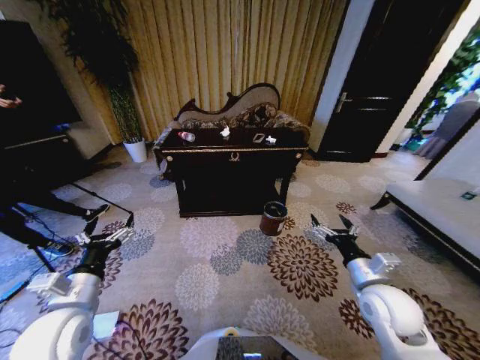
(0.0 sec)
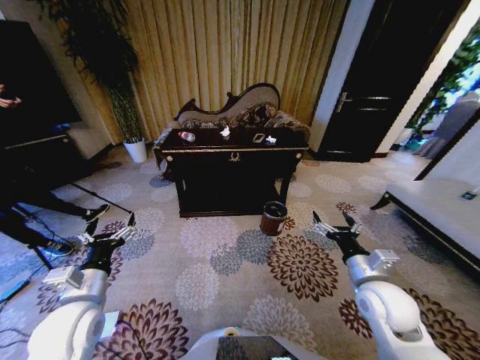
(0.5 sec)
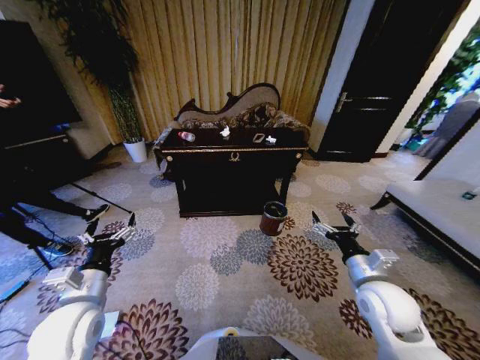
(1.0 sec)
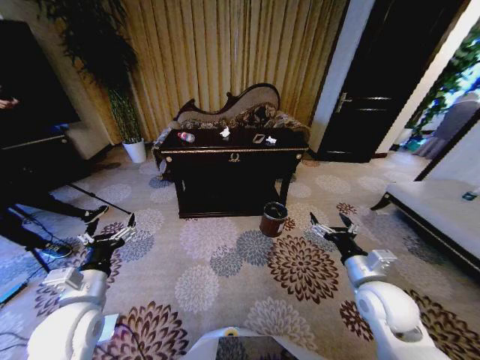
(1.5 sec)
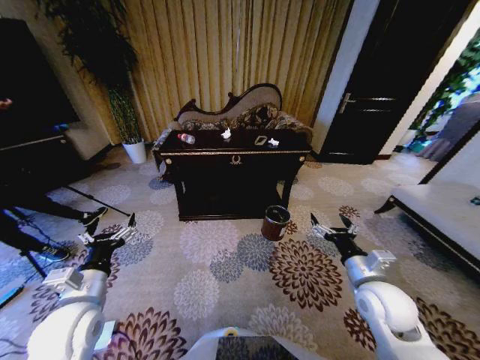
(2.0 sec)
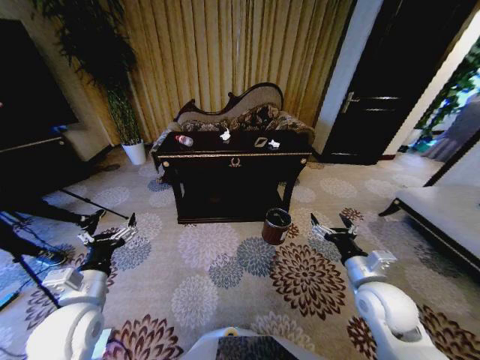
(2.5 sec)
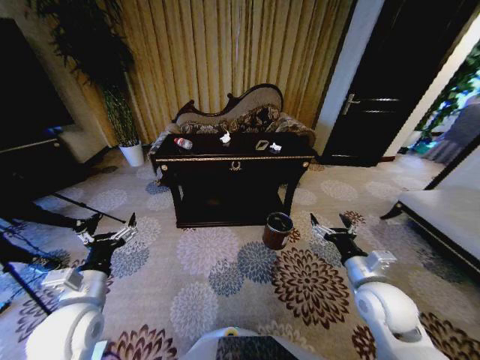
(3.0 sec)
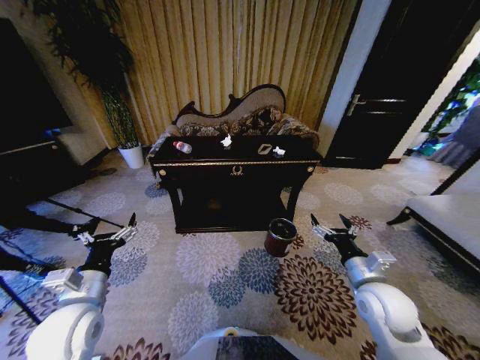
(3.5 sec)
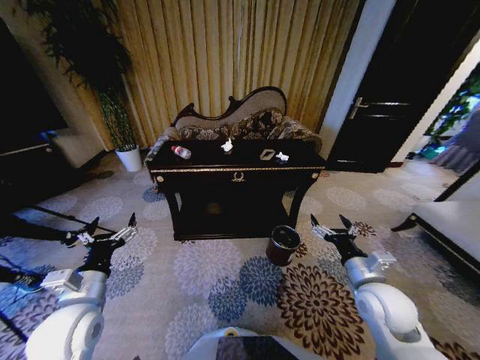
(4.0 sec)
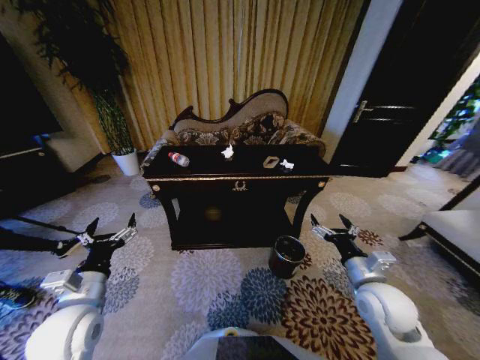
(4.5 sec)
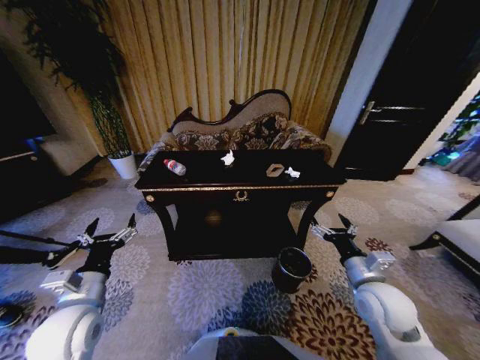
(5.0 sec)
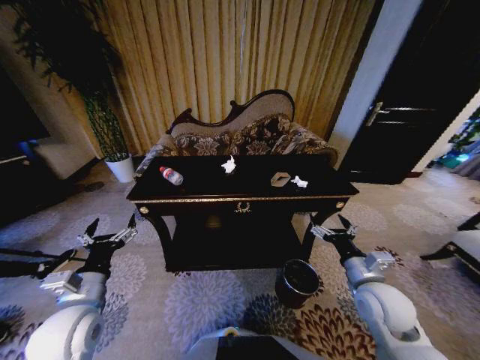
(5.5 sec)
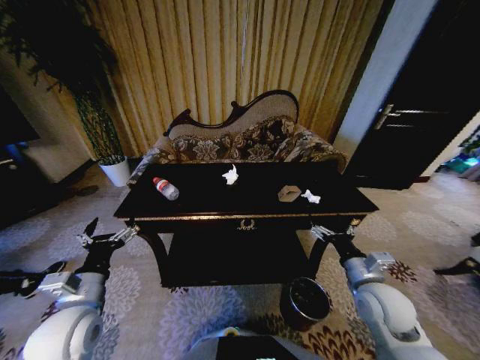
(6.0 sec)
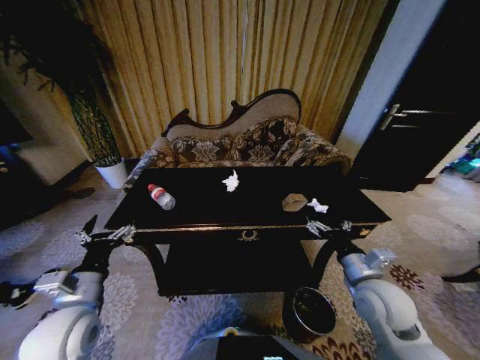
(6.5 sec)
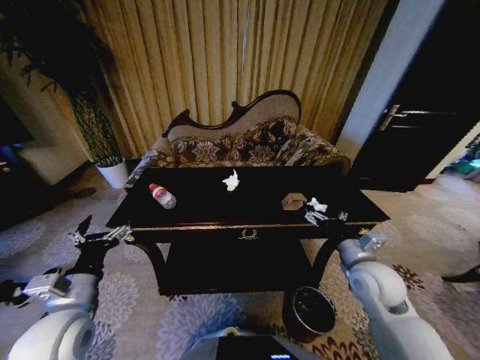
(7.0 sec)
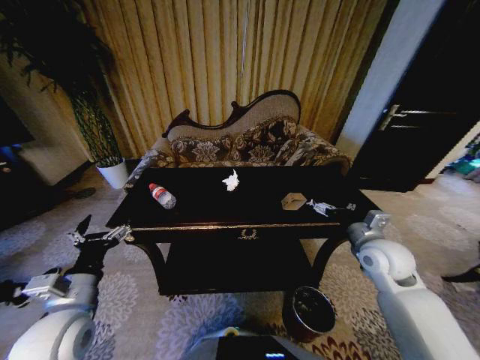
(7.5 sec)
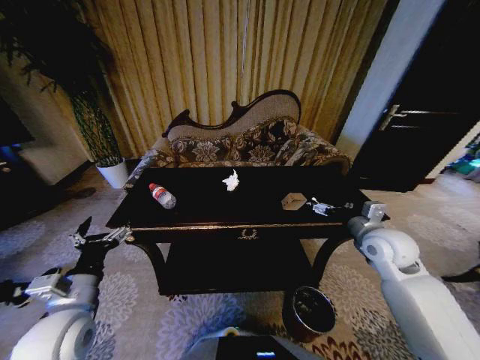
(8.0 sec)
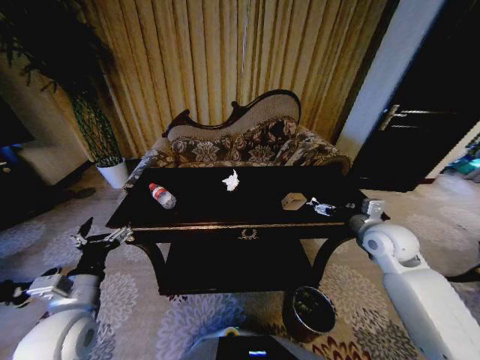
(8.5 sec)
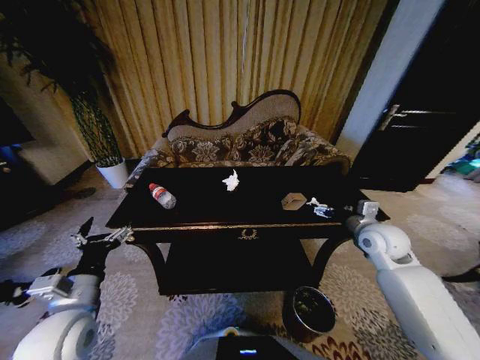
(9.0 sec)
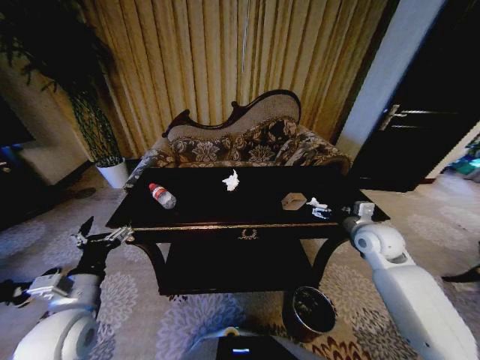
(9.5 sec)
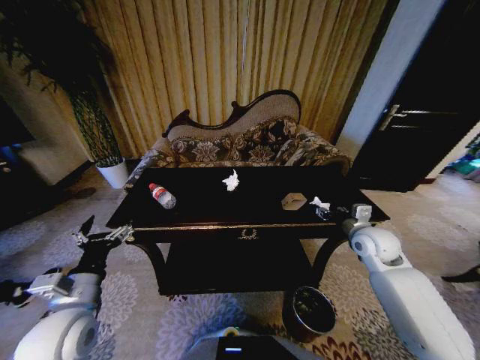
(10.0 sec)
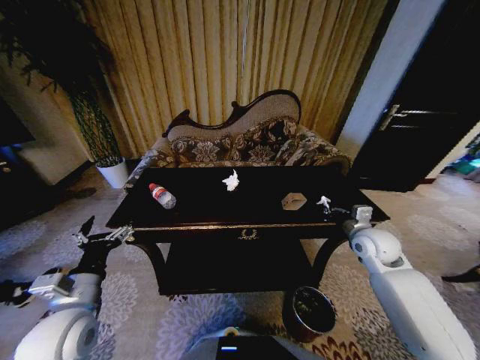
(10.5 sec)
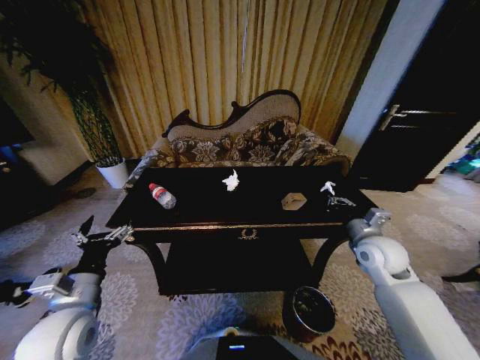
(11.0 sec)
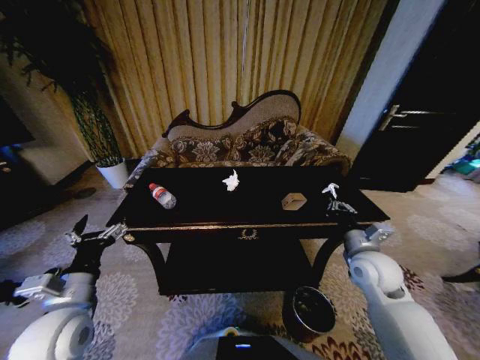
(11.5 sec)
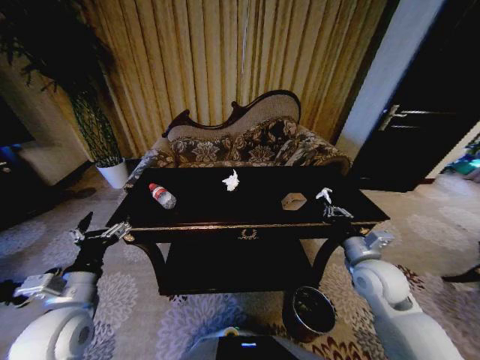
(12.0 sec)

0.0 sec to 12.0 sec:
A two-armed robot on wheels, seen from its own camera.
Task of the whole recording: Move to the front of the table and place the trash on the table into the trash bin.
6.0 sec to 8.0 sec: The right gripper moves forward and upward, about 15 cm.
8.0 sec to 10.0 sec: The right gripper moves approximately 5 cm, and closes.
10.0 sec to 12.0 sec: The right gripper goes some 10 cm backward, and closes up.

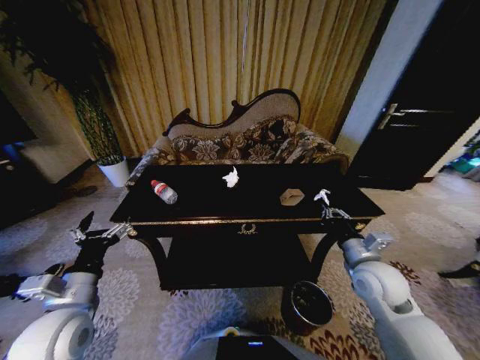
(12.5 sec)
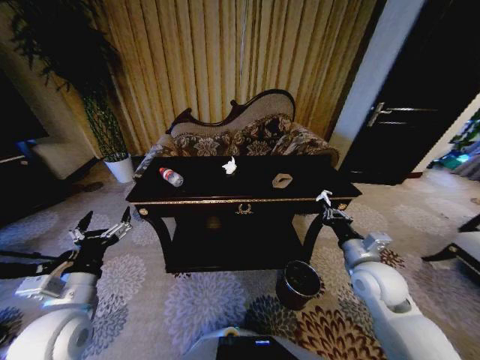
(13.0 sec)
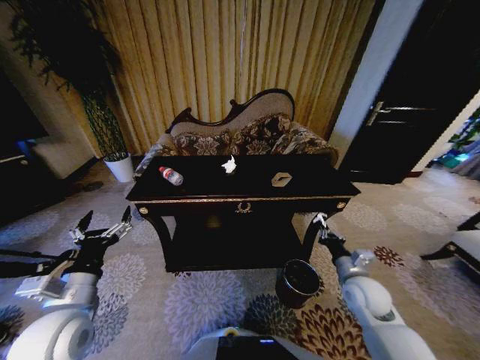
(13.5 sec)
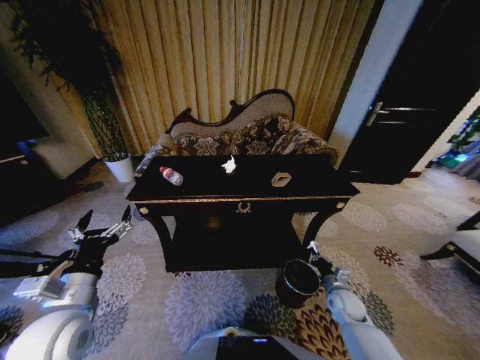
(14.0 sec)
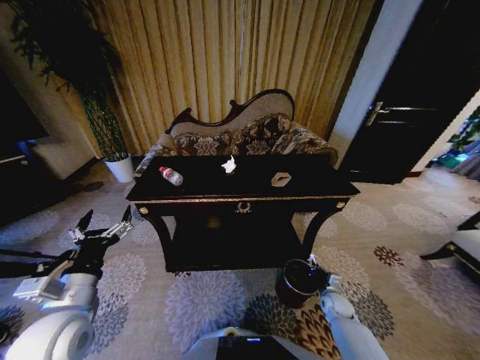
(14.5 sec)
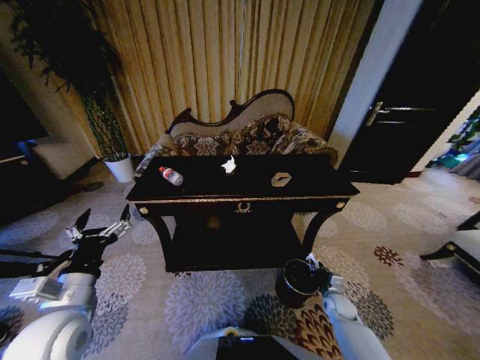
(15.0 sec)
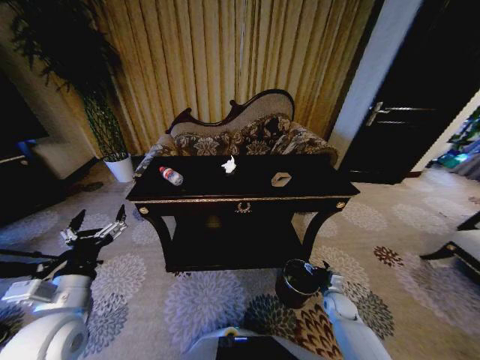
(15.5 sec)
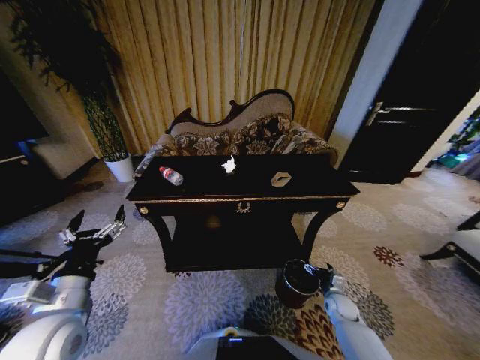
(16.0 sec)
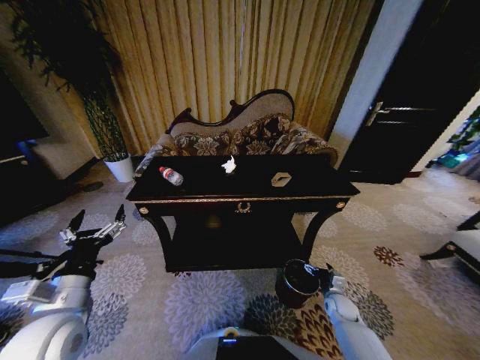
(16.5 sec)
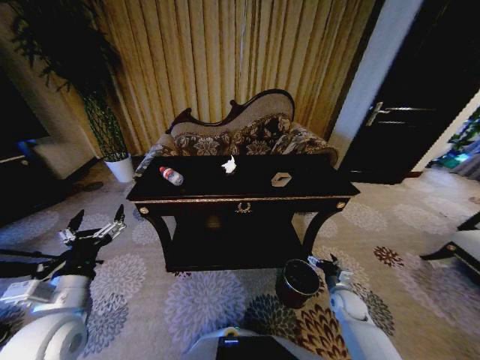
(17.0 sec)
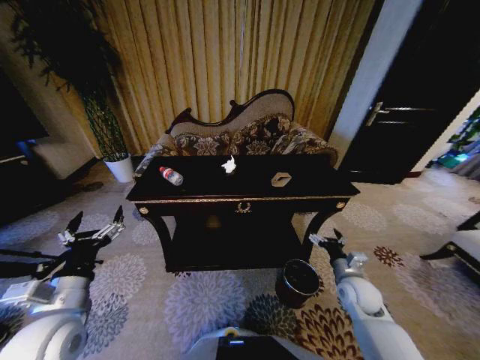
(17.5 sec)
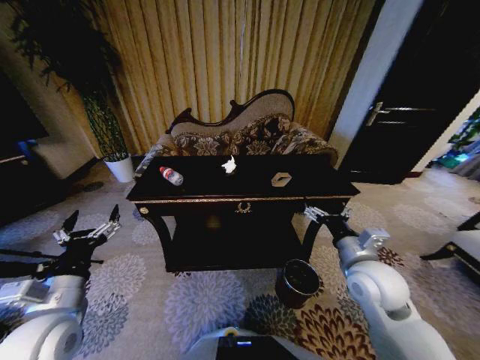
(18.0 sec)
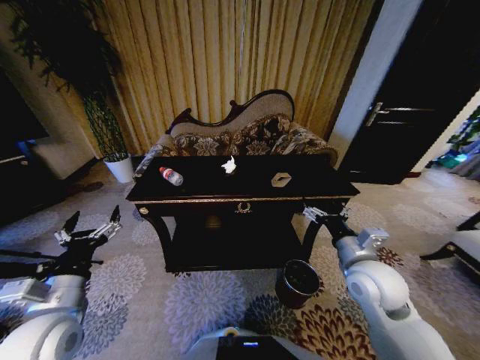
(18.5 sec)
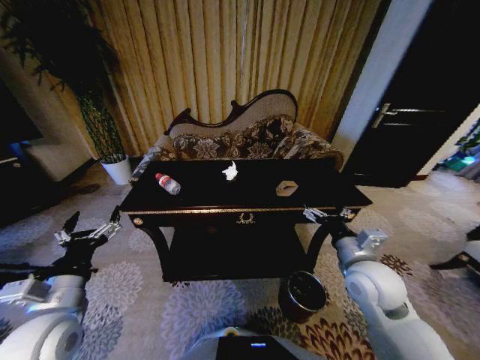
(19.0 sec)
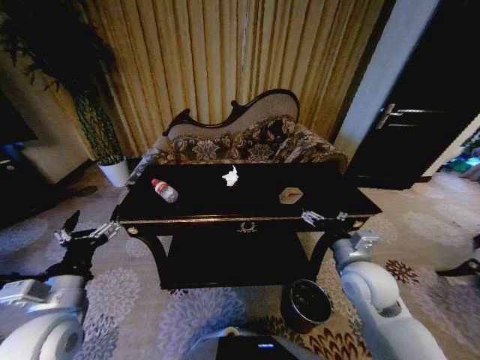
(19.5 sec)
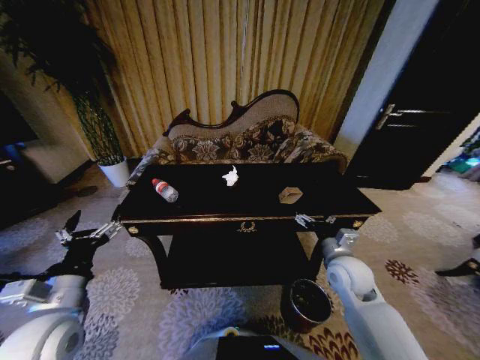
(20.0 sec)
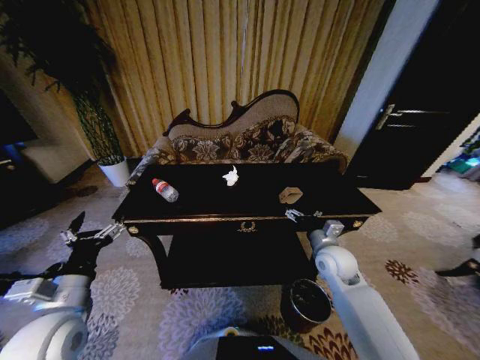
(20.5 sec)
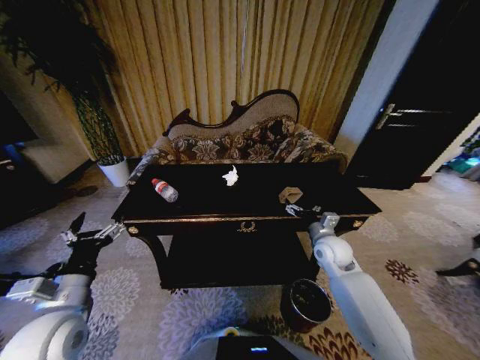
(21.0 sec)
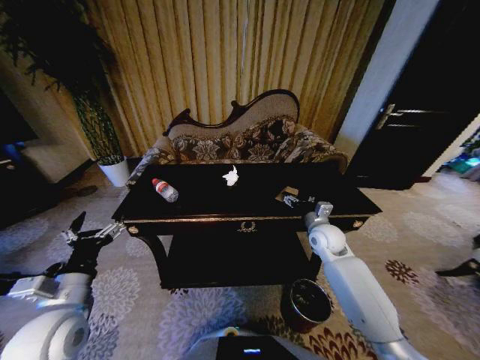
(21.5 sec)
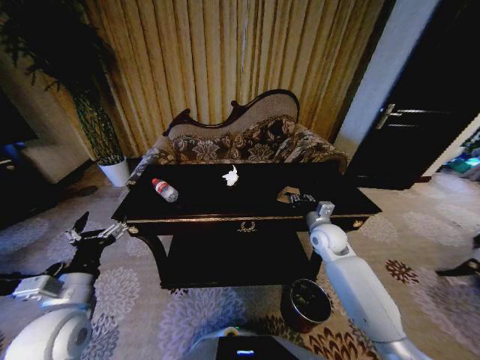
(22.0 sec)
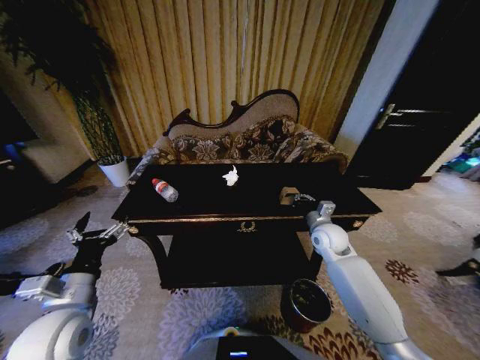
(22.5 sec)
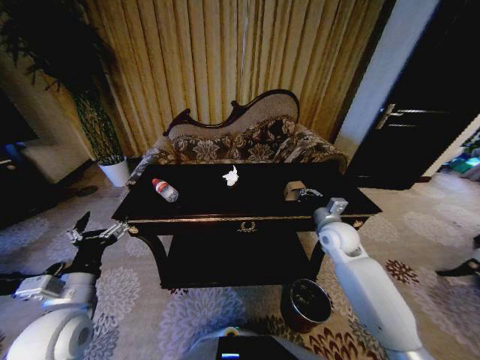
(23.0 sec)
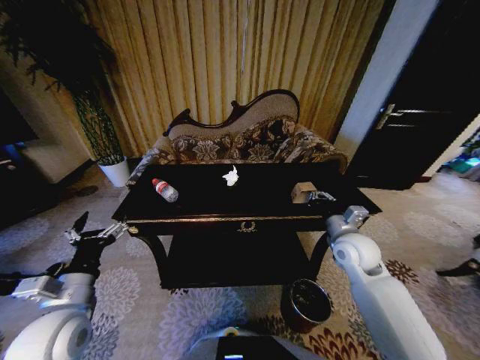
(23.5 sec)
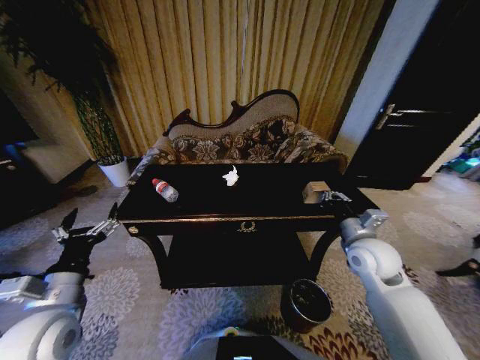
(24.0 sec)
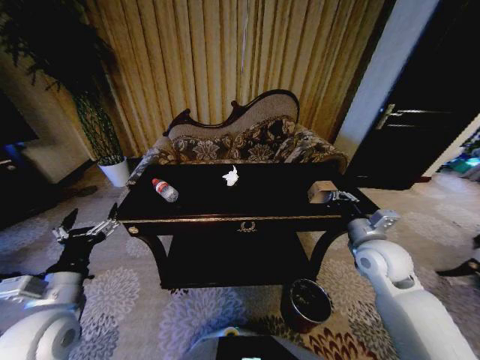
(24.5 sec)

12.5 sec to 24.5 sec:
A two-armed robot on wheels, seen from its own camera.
Task of the whole recording: Move to the front of the table and place the trash on the table into the trash bin.
12.5 sec to 14.5 sec: The right gripper goes some 30 cm downward.
16.5 sec to 18.5 sec: The right gripper is displaced upward by approximately 30 cm.
18.5 sec to 20.5 sec: The right gripper heads forward and downward, covering some 10 cm.
20.5 sec to 22.5 sec: The right gripper travels forward by about 5 cm, and closes.
22.5 sec to 24.5 sec: The right gripper travels backward and upward by about 15 cm.

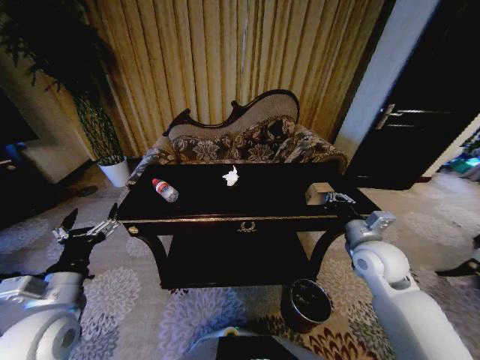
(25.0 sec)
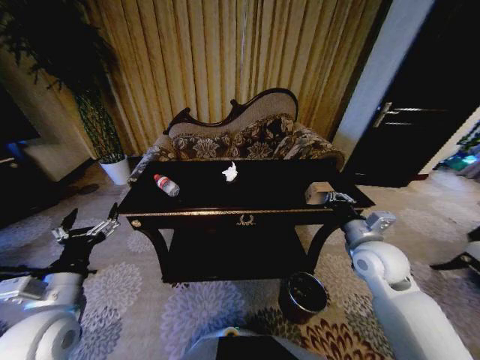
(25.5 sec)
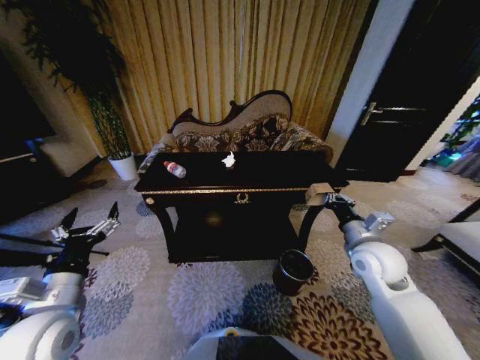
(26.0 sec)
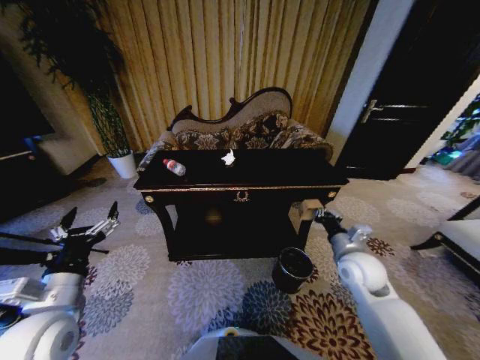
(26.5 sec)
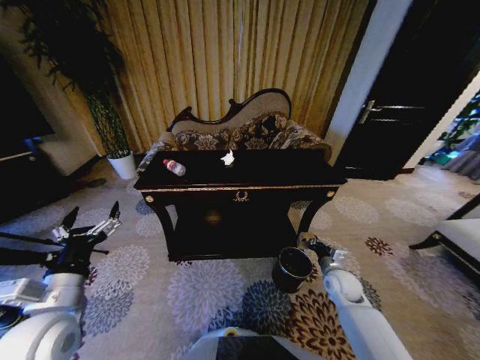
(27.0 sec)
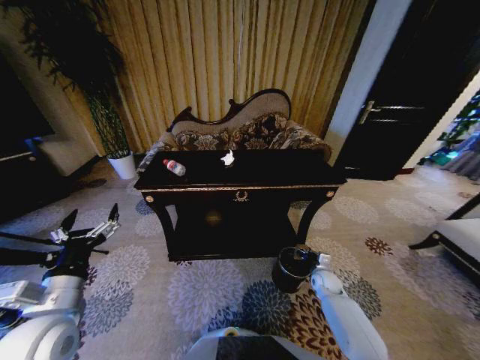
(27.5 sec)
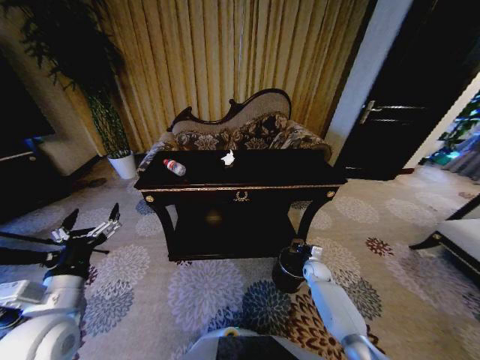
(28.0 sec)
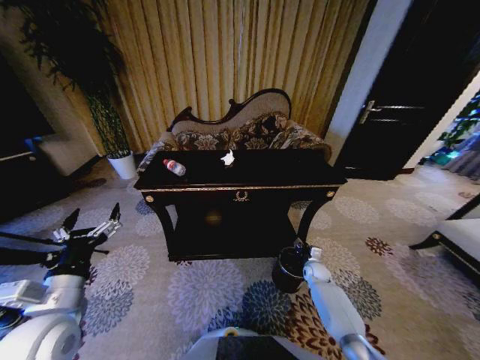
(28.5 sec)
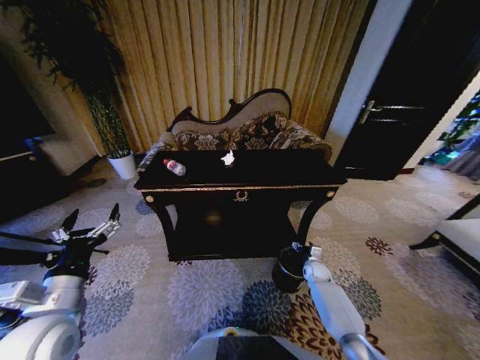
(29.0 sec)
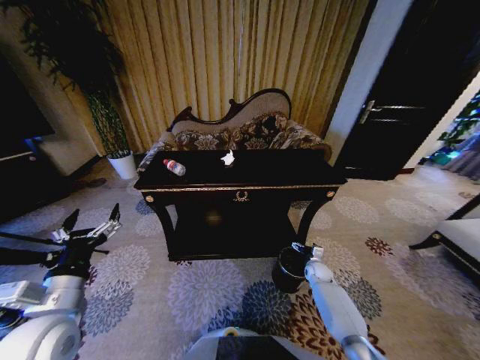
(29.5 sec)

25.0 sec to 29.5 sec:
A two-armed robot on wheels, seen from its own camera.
Task of the whole recording: Move to the front of the table and place the trash on the table into the trash bin.
25.0 sec to 27.0 sec: The right gripper is displaced downward by some 20 cm.
27.0 sec to 29.5 sec: The right gripper is displaced downward and forward by some 15 cm, and opens up.
